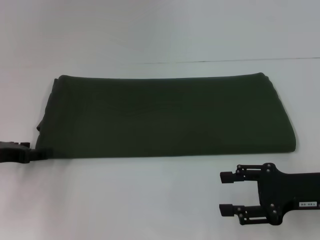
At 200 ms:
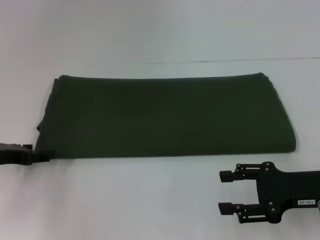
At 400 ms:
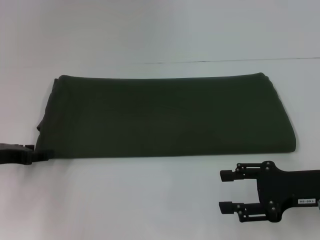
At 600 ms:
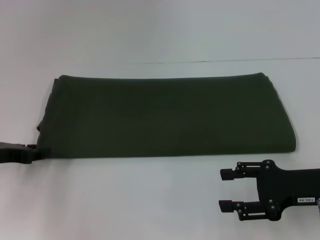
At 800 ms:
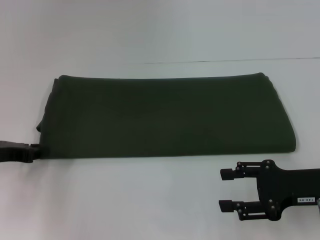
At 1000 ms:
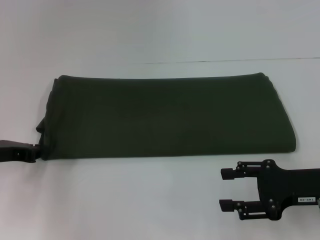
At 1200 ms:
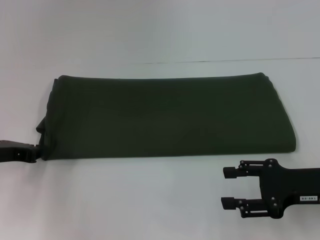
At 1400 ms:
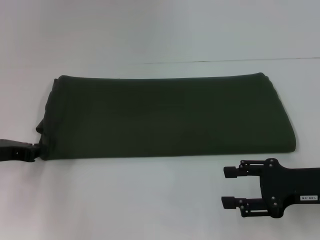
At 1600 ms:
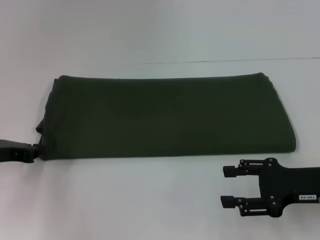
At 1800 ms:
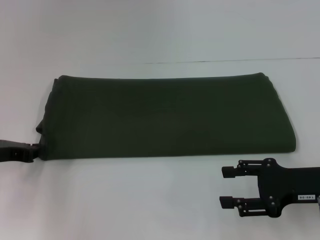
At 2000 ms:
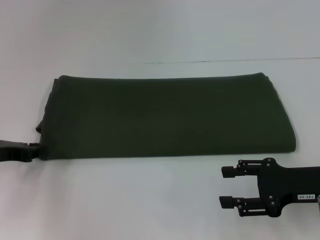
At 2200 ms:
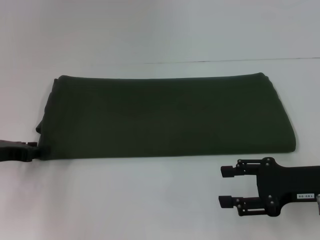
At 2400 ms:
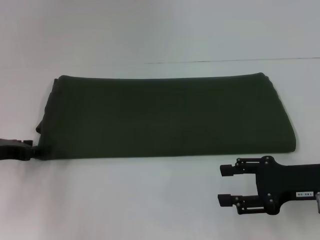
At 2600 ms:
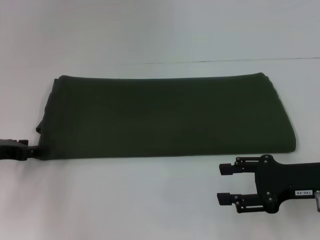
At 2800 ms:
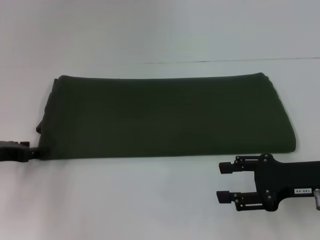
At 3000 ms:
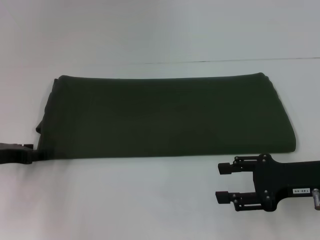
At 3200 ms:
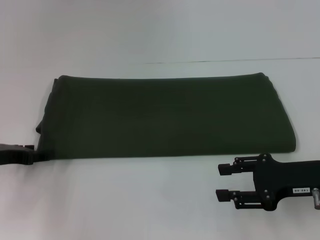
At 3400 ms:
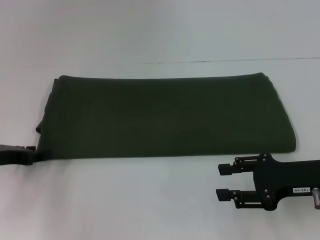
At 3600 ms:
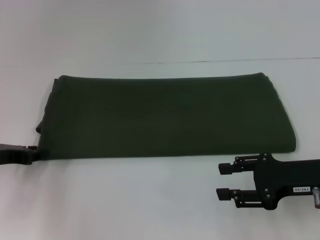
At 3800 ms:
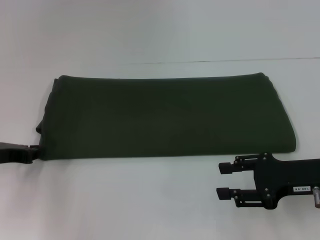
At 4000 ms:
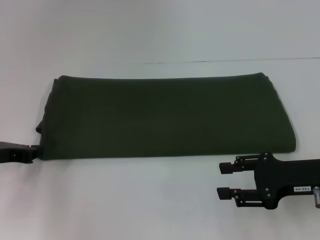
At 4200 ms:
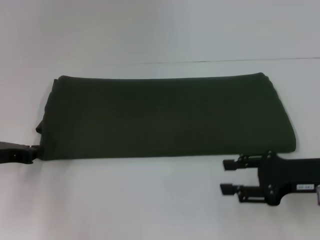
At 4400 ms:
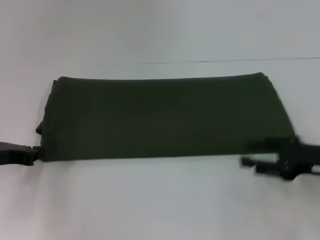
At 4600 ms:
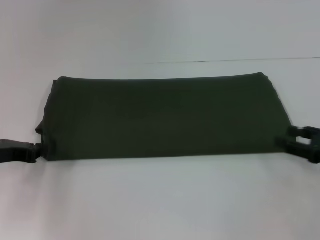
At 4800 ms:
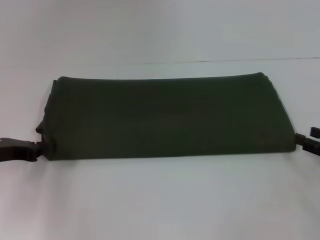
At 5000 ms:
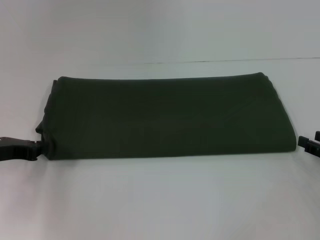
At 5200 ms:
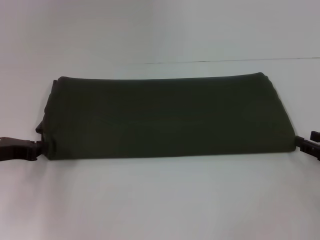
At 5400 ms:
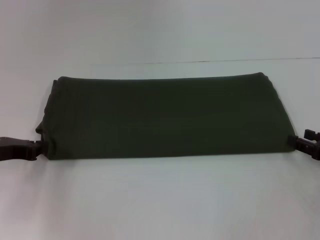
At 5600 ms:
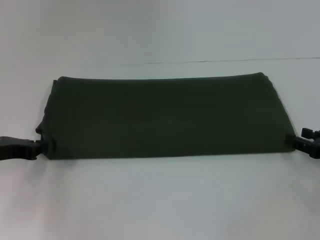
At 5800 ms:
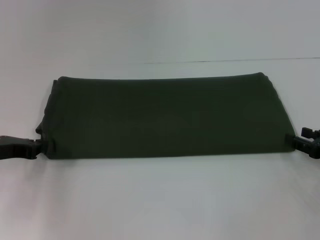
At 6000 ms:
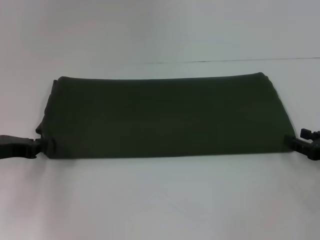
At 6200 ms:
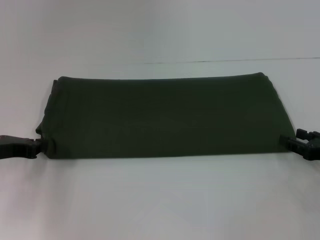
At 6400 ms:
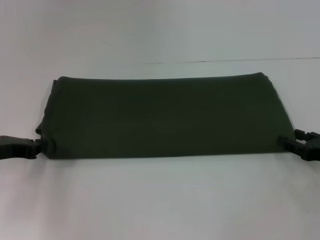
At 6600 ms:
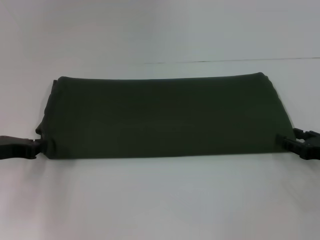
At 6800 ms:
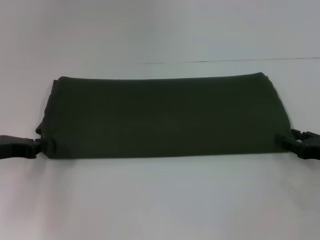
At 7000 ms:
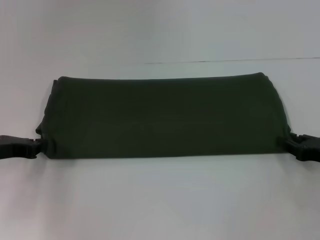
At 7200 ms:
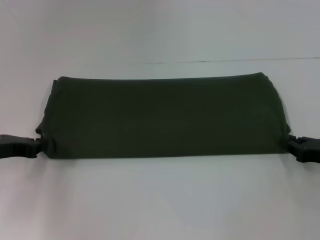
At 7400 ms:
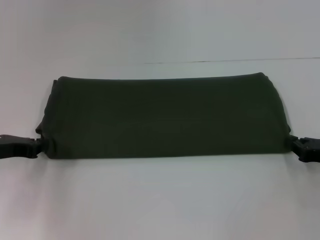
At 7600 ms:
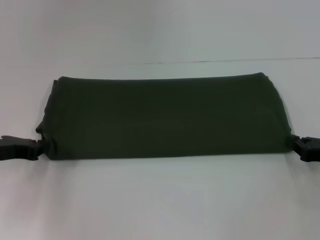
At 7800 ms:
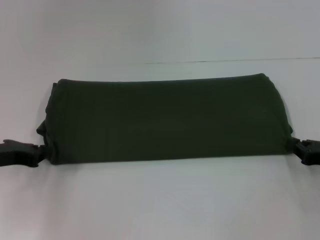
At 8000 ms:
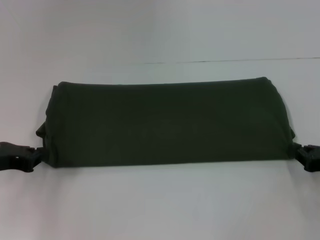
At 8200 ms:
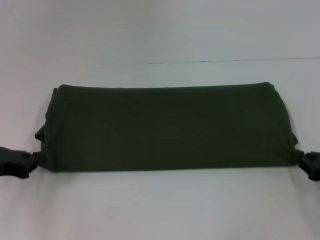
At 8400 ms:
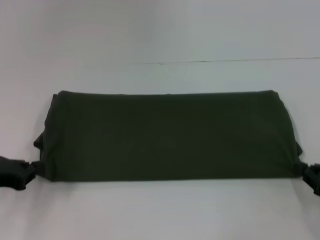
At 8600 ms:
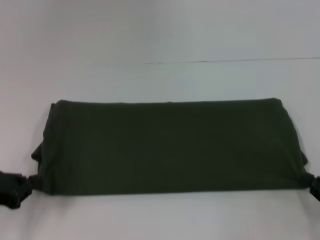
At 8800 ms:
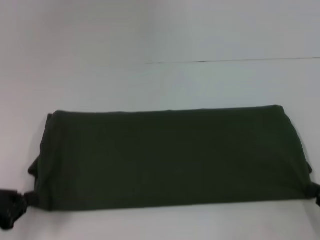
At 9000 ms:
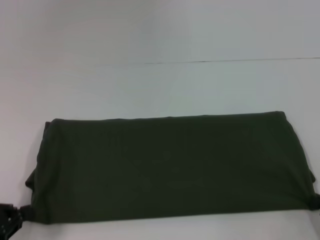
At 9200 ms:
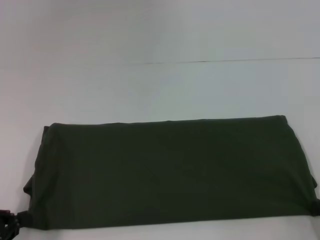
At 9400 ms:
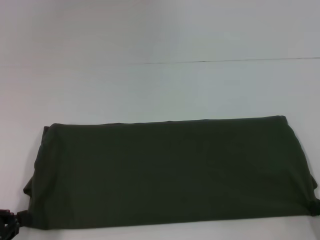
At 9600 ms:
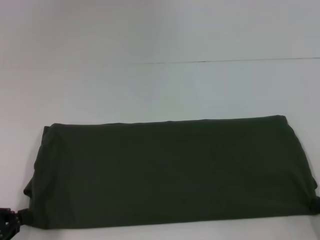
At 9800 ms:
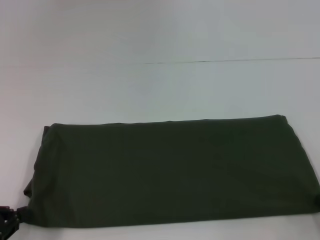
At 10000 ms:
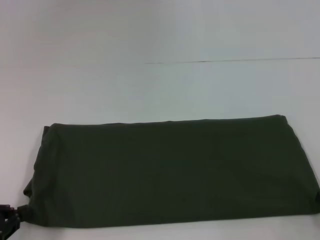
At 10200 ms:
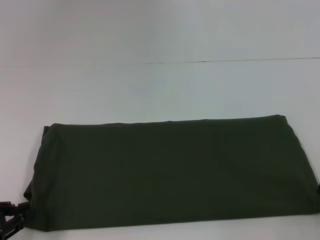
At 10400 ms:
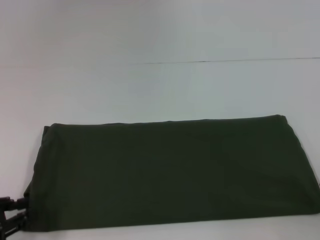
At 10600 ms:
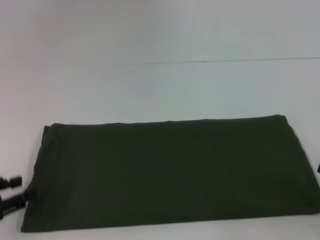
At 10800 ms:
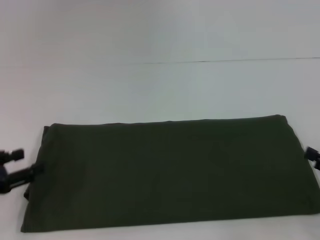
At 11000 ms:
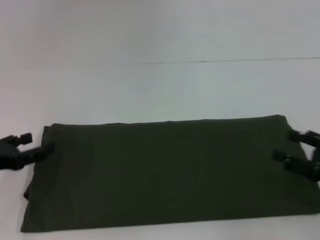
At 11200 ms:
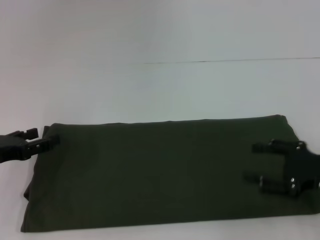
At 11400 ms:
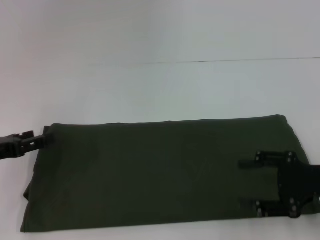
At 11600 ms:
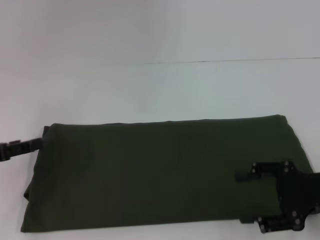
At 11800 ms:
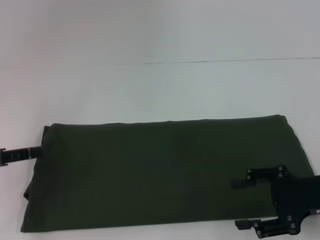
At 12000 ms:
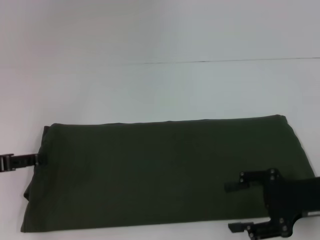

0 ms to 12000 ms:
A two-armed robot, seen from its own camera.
3000 ms to 4400 ms: The left gripper closes.
4400 ms to 6000 ms: The right gripper ends up about 5 cm from where it was.
6000 ms to 7600 ms: The right gripper closes its fingers.
7600 ms to 9000 ms: Both grippers travel together backward, about 10 cm.
9000 ms to 10400 ms: The right gripper opens its fingers.
10400 ms to 12000 ms: The left gripper heads forward and upward, covering about 10 cm, and opens its fingers, while the right gripper moves to the left, forward and upward, roughly 15 cm.

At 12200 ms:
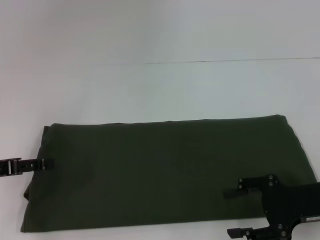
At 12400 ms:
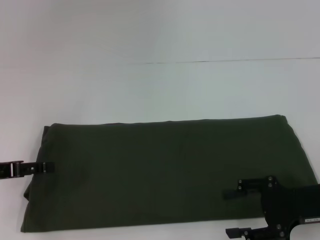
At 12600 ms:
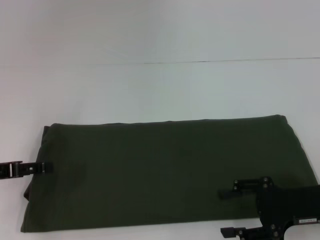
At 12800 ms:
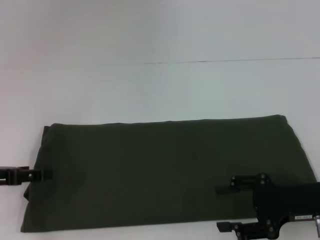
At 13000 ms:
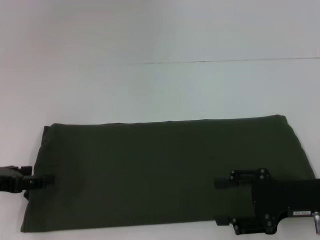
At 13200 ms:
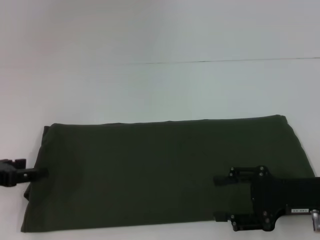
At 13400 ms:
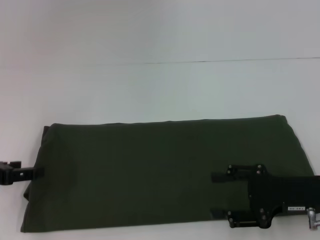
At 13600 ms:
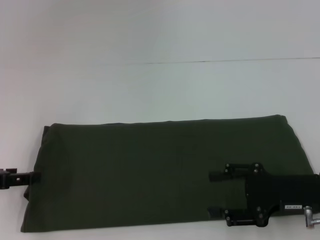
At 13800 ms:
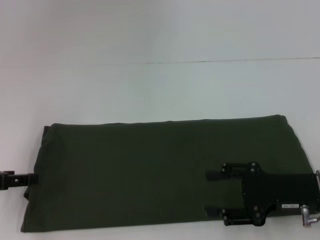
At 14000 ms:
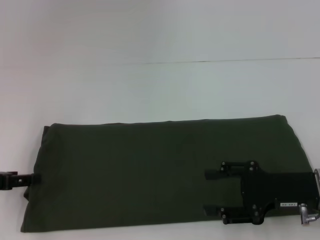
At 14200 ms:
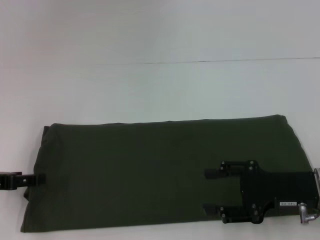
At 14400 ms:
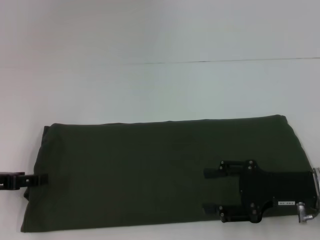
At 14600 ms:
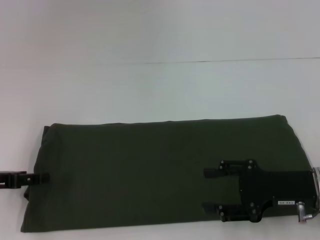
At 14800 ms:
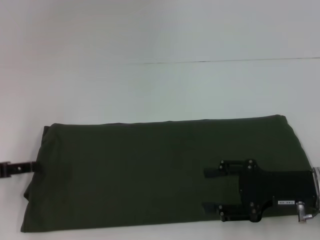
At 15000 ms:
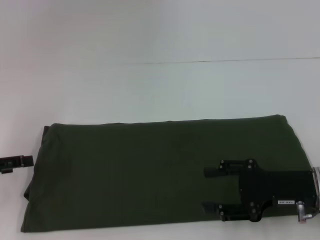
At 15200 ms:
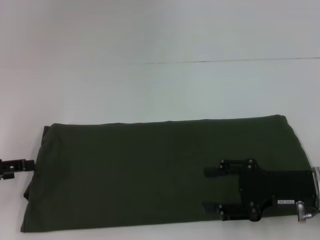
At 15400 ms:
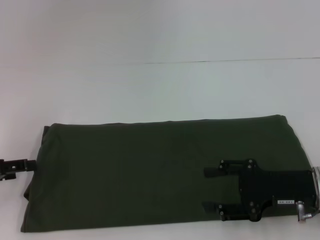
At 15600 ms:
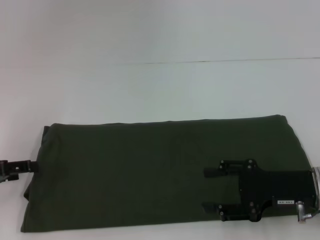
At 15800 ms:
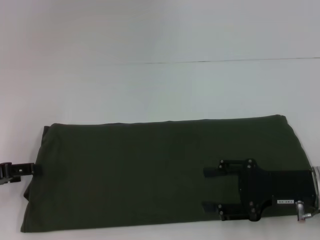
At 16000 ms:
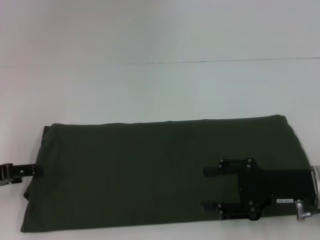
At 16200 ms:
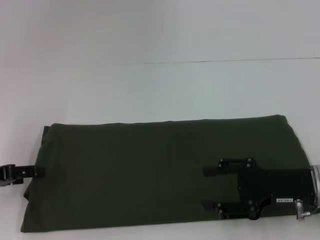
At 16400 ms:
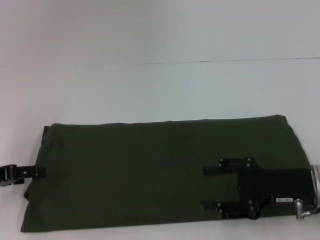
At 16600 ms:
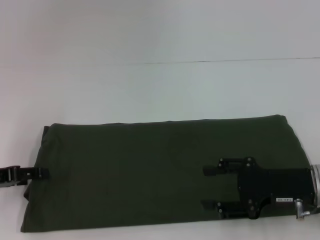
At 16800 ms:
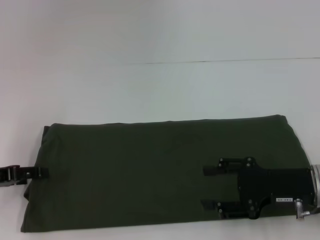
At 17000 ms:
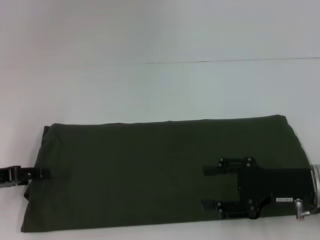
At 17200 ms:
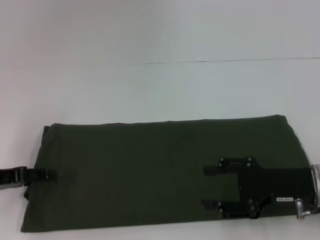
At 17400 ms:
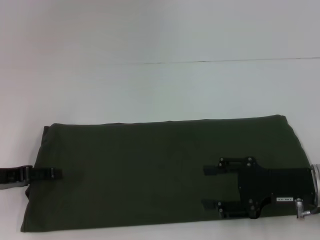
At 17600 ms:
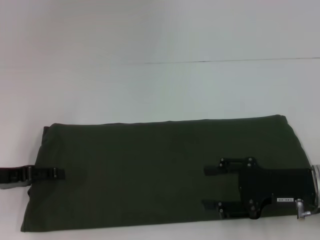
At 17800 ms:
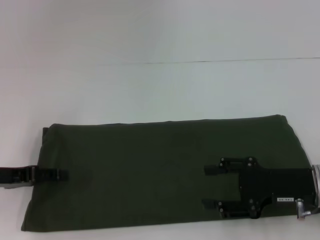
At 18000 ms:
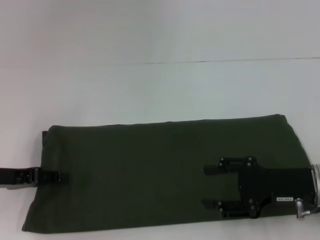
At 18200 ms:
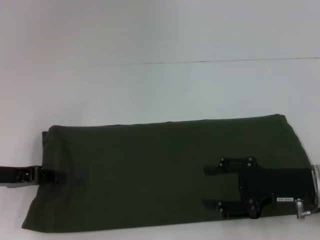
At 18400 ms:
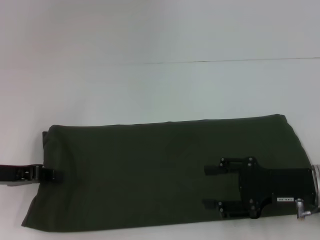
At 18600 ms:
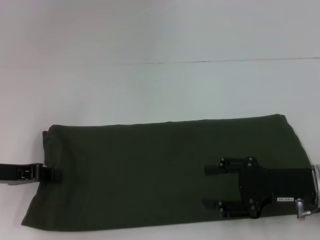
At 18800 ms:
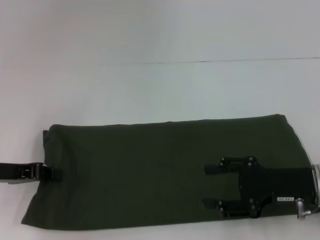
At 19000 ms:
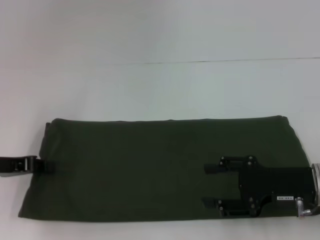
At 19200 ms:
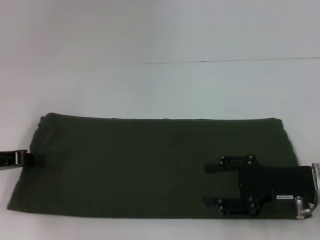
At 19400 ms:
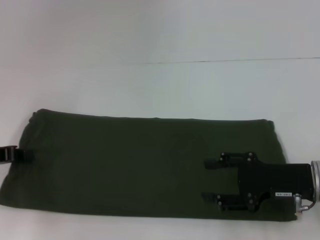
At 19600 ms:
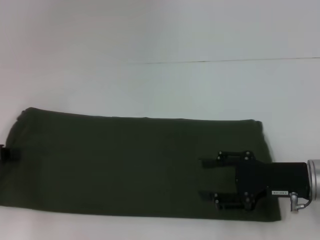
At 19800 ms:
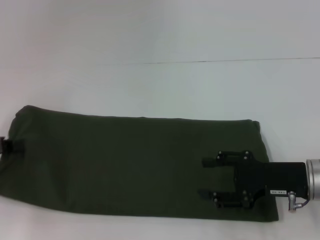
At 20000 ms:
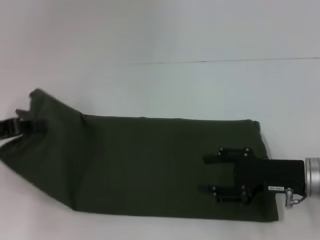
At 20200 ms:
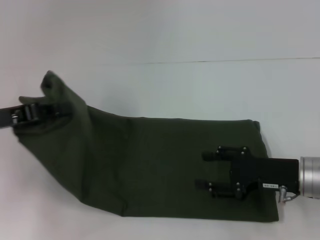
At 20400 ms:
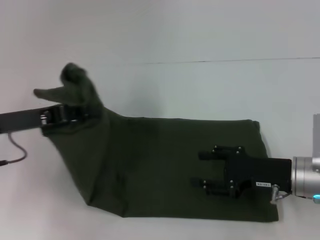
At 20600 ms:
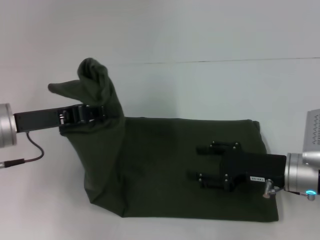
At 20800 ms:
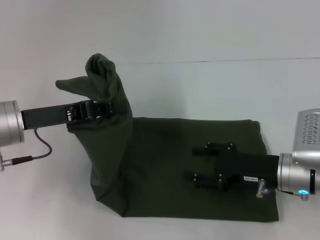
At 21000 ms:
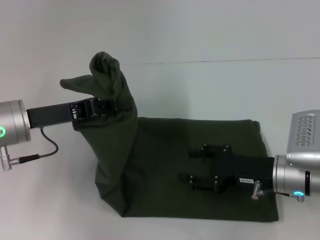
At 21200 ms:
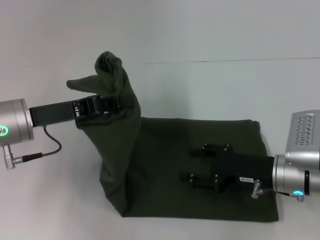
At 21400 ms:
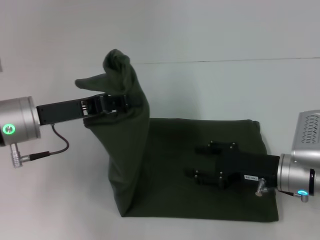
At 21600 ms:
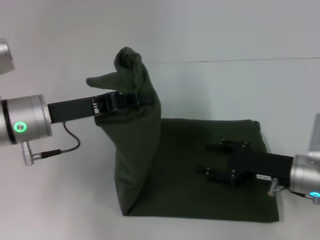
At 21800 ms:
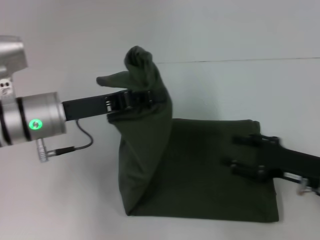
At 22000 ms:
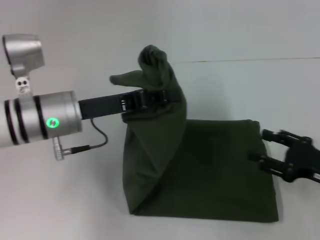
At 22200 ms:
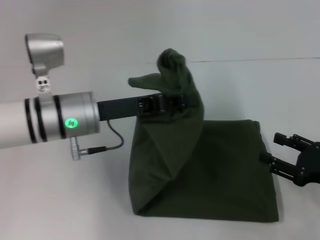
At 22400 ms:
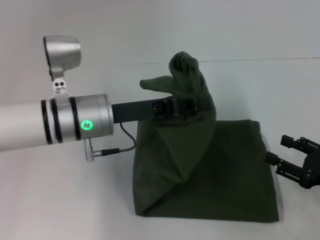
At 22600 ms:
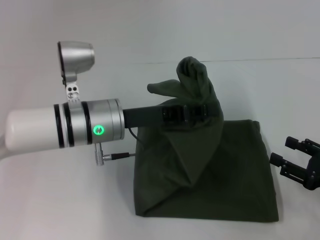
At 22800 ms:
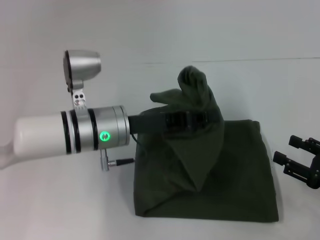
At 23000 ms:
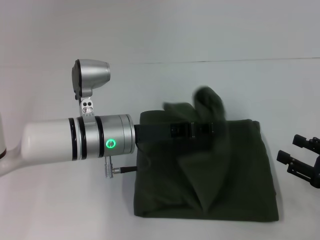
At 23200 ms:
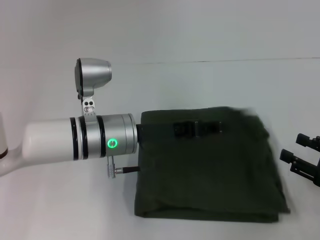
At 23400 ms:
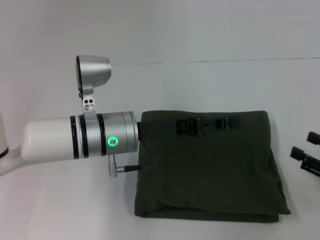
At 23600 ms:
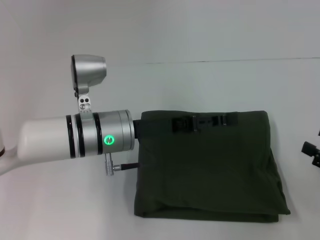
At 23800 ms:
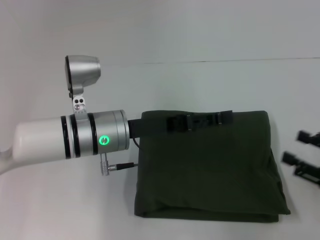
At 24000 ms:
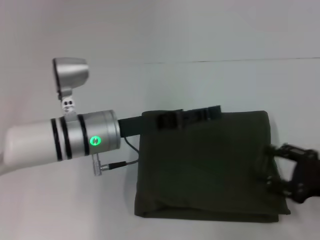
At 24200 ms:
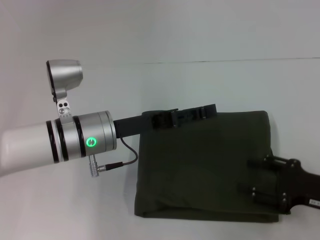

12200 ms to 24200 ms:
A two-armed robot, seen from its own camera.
Step, 12200 ms to 23600 ms: Fold the clothes with your left hand.
12200 ms to 18200 ms: There are only small adjustments of the grippers.
18200 ms to 19800 ms: The left gripper closes up.
19800 ms to 21200 ms: The left gripper heads to the right, covering roughly 15 cm.
21200 ms to 22600 ms: The right gripper shifts roughly 15 cm to the right and backward, while the left gripper shifts approximately 10 cm to the right.
22600 ms to 24200 ms: The left gripper opens up.
